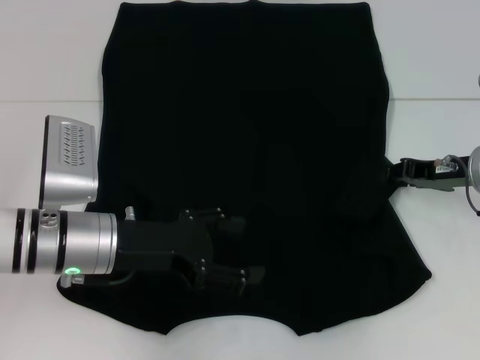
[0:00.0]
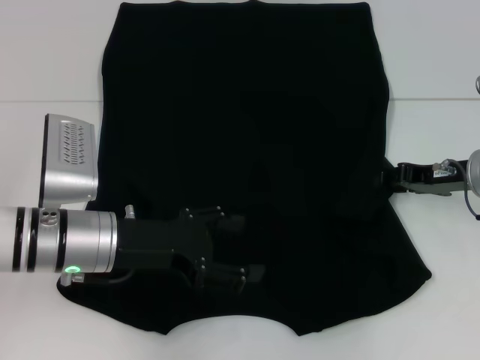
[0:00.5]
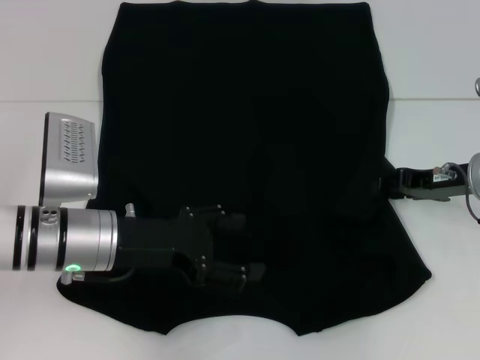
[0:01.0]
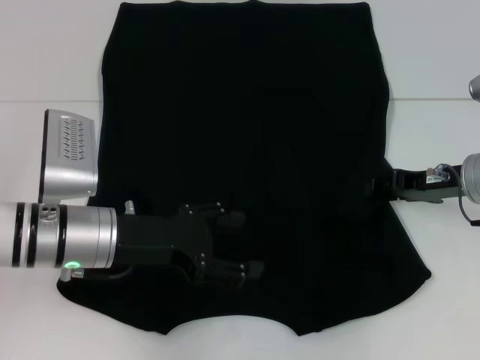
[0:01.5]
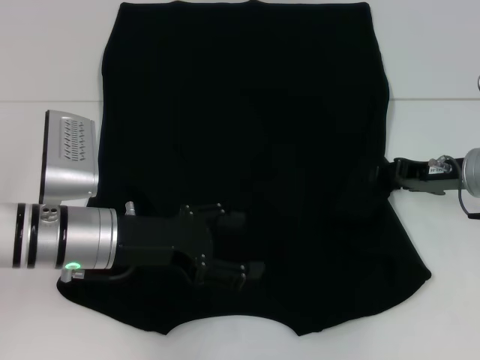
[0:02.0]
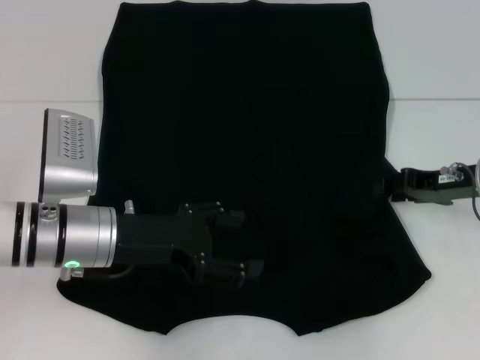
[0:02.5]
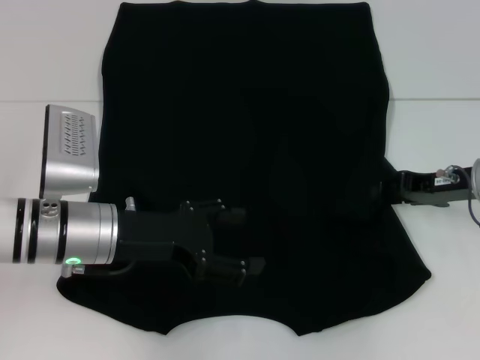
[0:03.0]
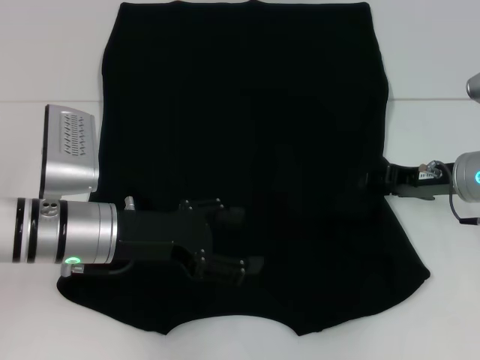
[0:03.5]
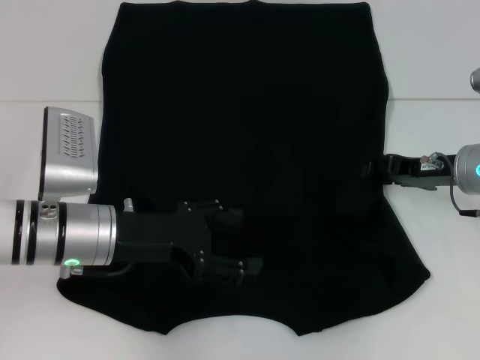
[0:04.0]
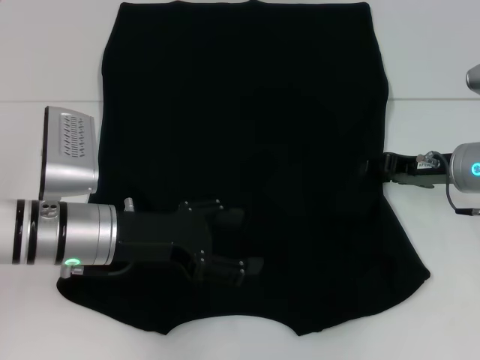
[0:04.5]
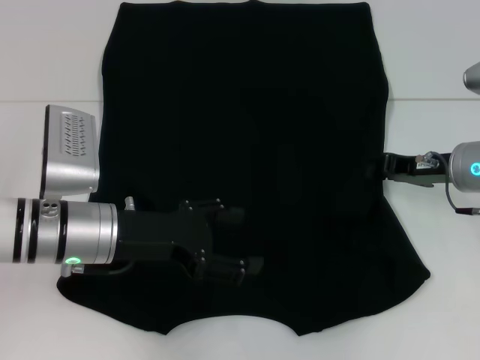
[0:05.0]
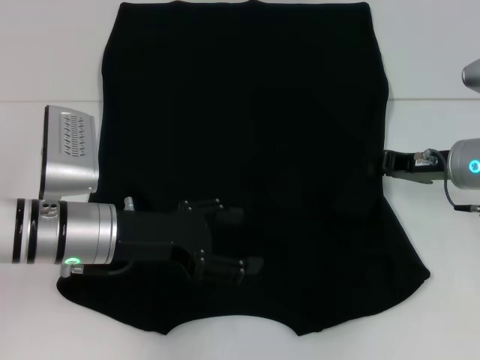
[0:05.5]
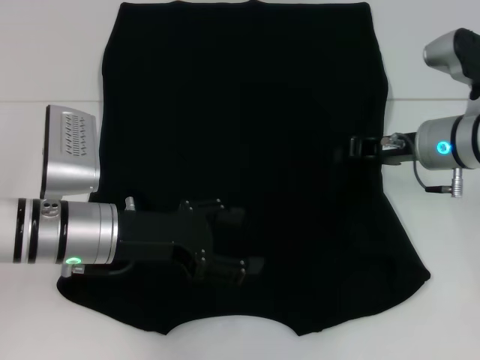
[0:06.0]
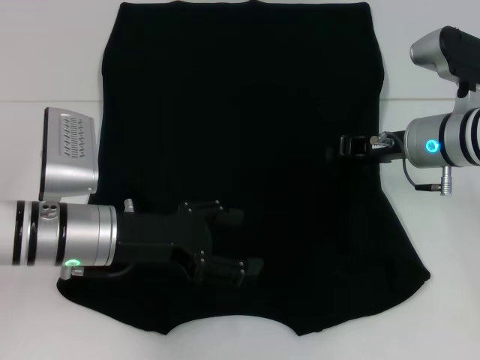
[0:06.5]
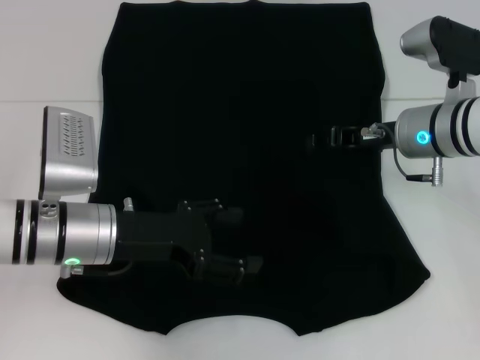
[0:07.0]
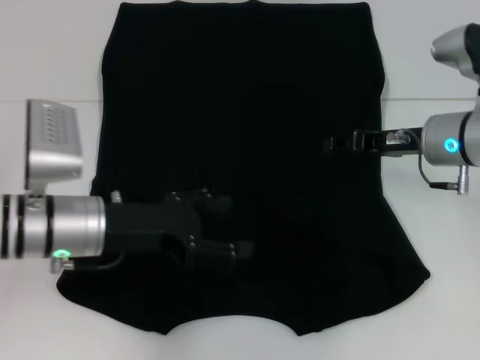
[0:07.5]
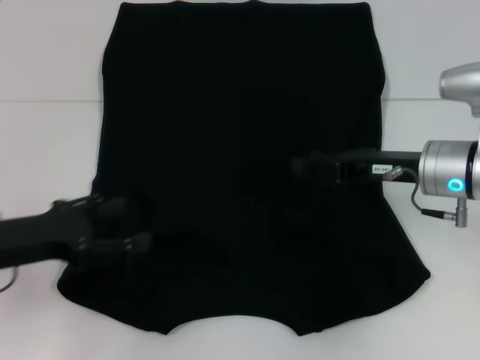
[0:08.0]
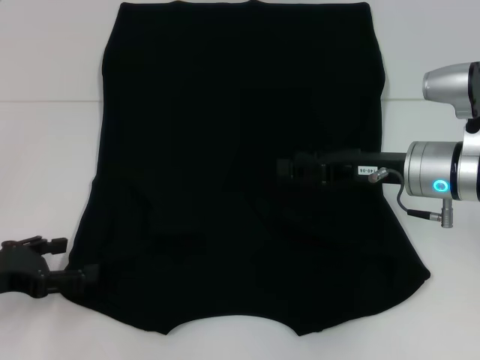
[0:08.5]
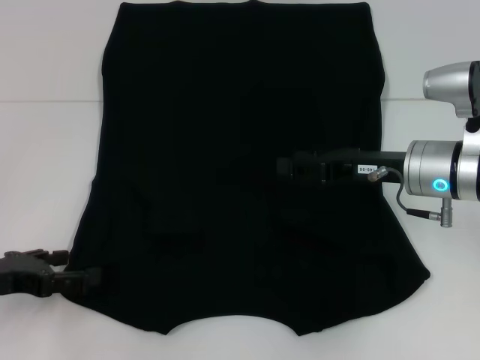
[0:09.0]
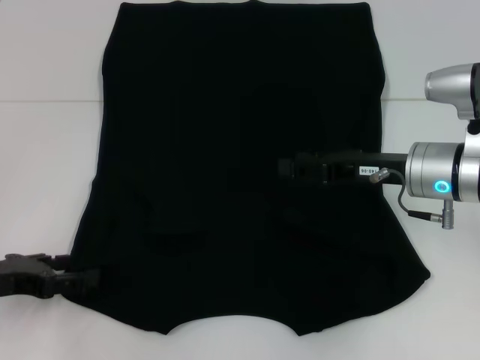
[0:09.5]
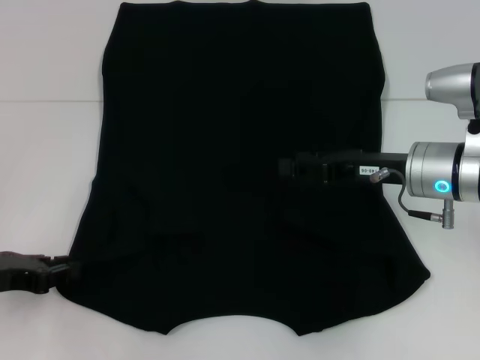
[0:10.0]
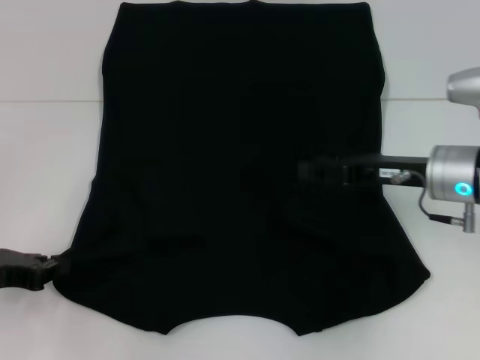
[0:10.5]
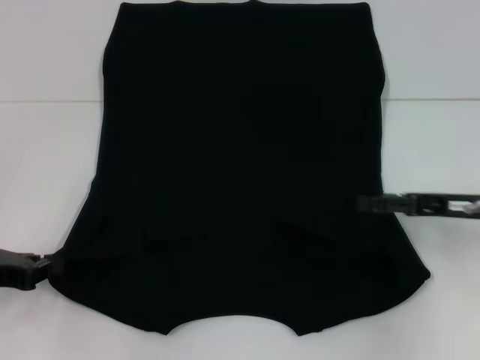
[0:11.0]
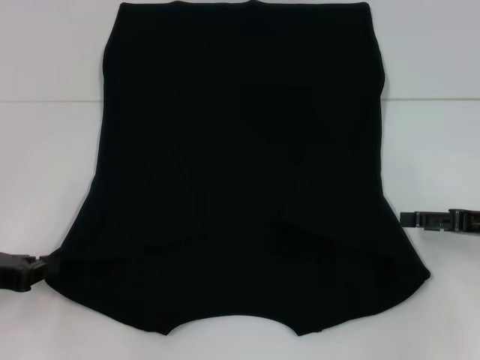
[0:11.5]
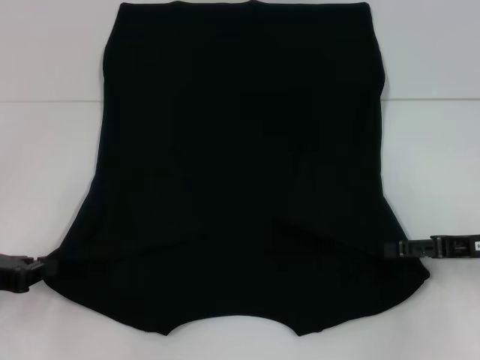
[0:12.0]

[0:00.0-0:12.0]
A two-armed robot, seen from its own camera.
Step, 0:00.0 to 0:07.0: Fold the bottom right sleeve with your right hand.
Step, 0:07.5 to 0:11.0: Grab the bottom left corner with your left hand.
0:00.0 to 0:04.0: The grippers stay close to where they were, moving slightly.
0:04.0 to 0:06.0: The right gripper ends up approximately 5 cm from where it was, and closes its fingers.
0:06.0 to 0:08.0: The right gripper opens its fingers. The left gripper heads to the left, covering approximately 10 cm.
0:08.0 to 0:10.0: The left gripper changes place by some 5 cm, and closes up.
0:10.0 to 0:12.0: The right gripper moves to the right and backward, about 15 cm. The left gripper closes up.

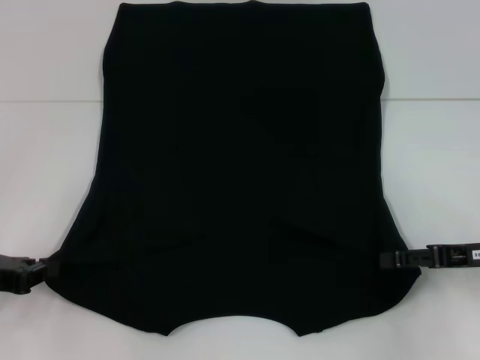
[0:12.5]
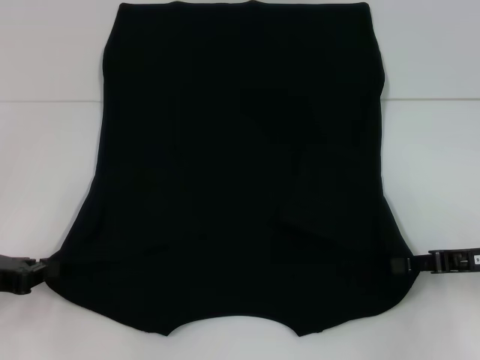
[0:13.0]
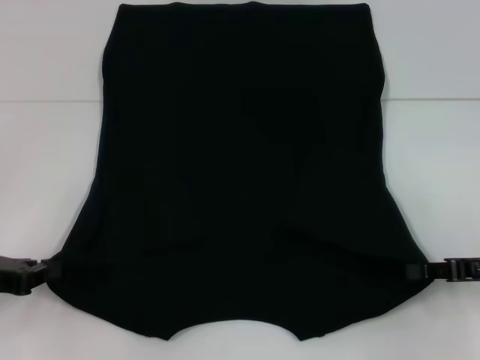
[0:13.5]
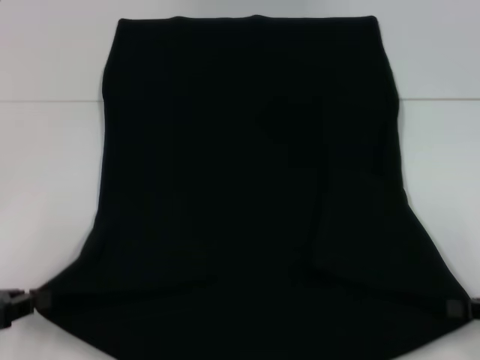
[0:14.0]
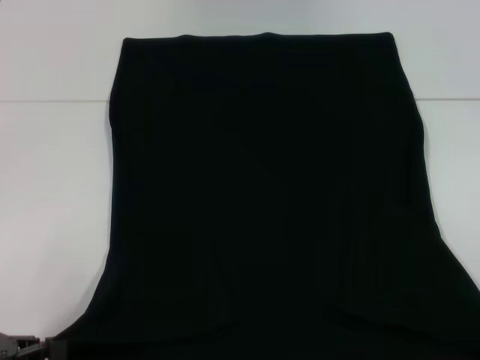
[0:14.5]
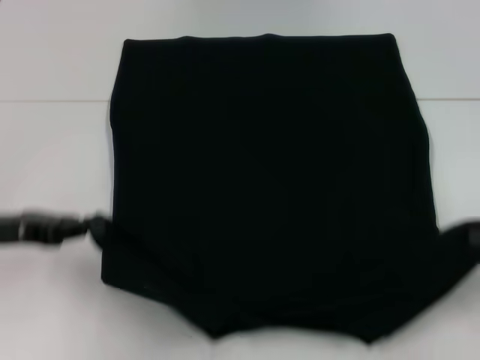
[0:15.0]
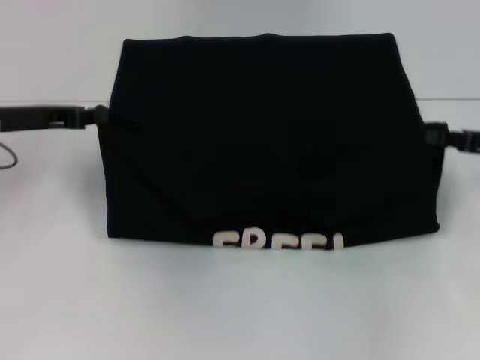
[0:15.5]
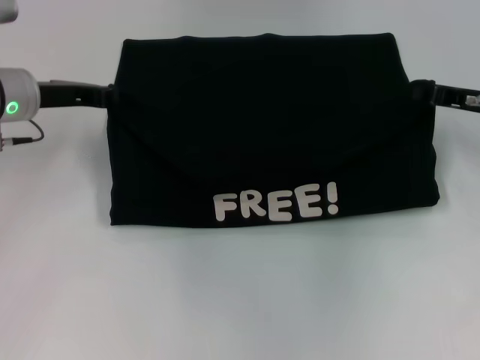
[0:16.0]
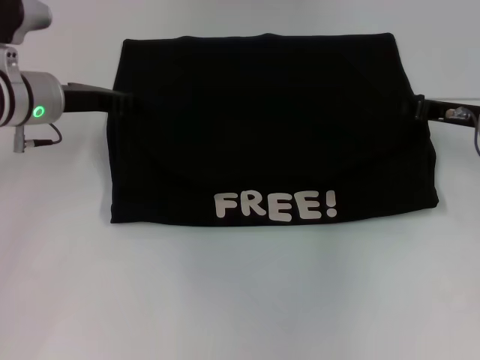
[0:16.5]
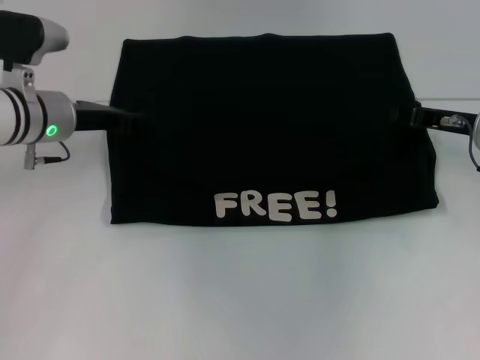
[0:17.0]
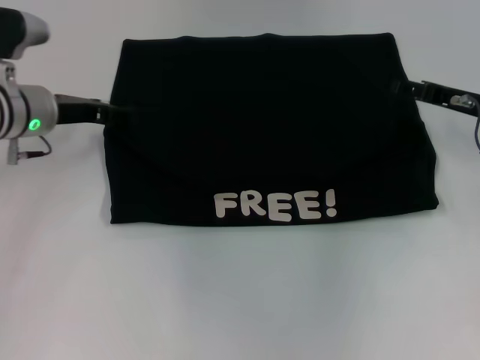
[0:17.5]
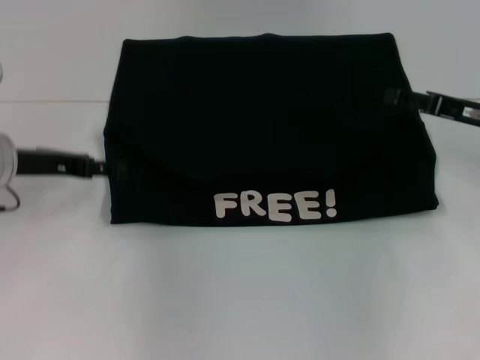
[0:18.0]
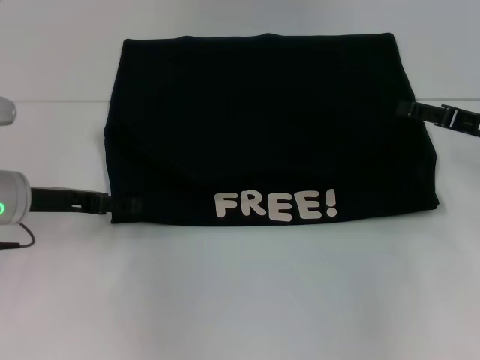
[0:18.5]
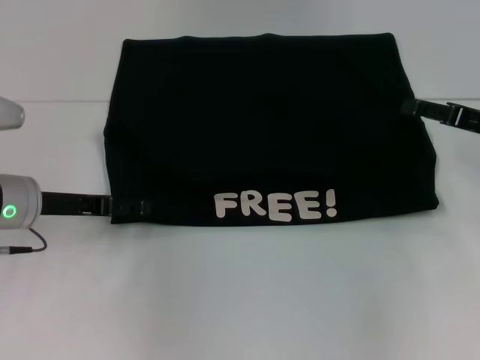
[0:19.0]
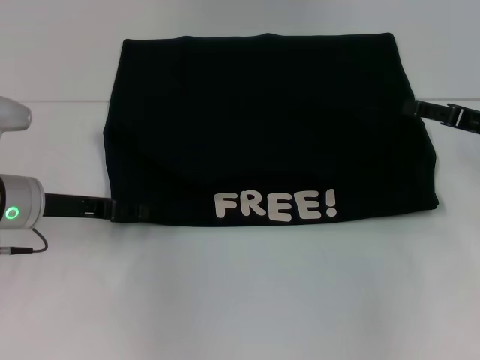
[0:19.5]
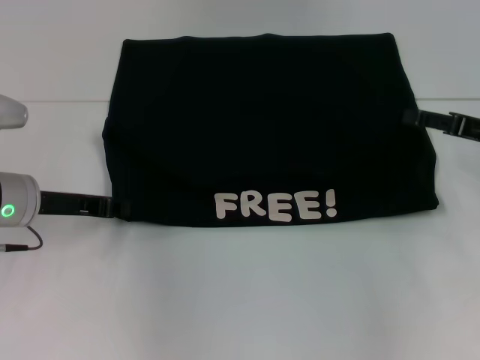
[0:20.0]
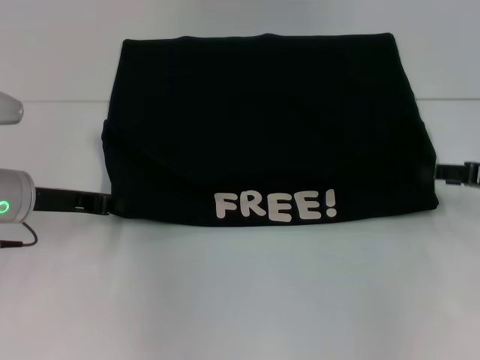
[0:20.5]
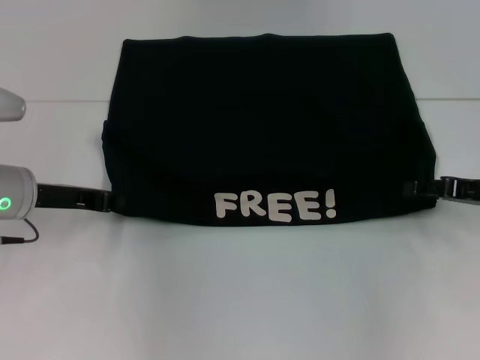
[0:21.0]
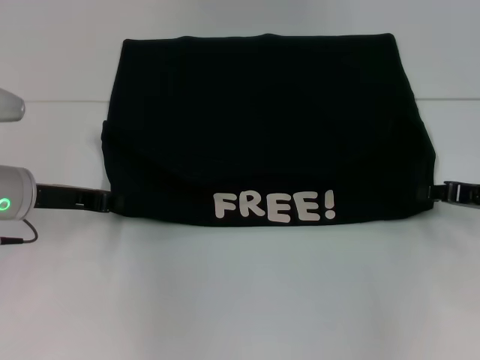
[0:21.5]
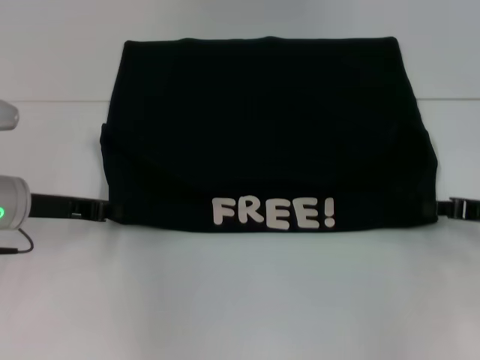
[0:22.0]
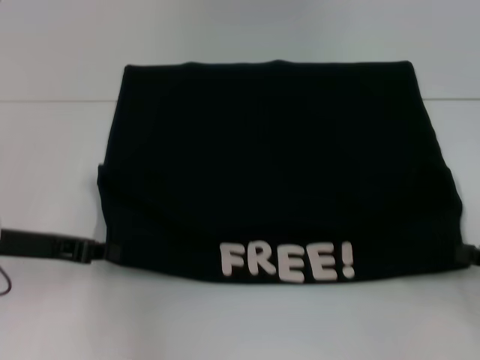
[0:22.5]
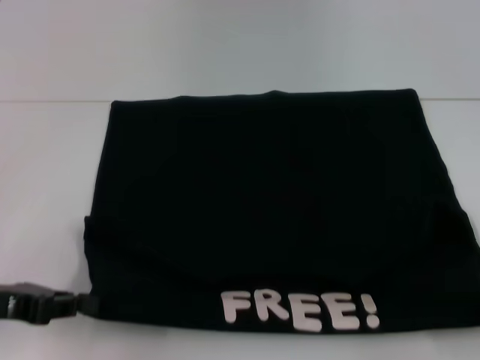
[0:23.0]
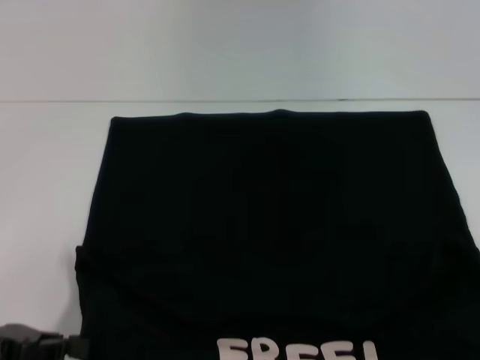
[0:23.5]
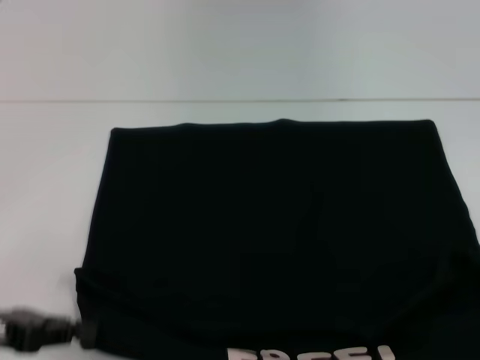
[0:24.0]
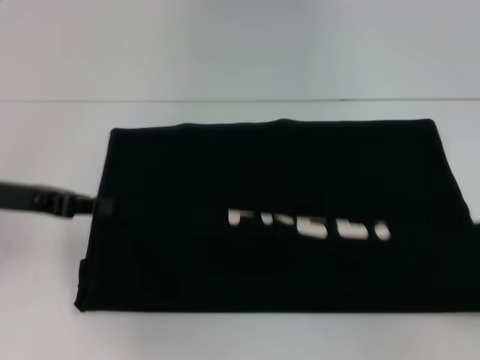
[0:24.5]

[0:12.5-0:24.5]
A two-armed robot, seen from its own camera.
Step, 0:13.5 to 0:17.5: Fold the clothes with your left hand.
Step, 0:13.5 to 0:17.5: Fold the clothes with your right hand.
Step, 0:18.0 to 0:23.5: Pull the clothes with your left hand.
Step, 0:18.0 to 0:23.5: Pull the clothes with your right hand.
0:12.5 to 0:14.5: The right gripper shifts approximately 15 cm backward and to the right, and closes up. The left gripper heads backward, covering some 10 cm.
0:14.5 to 0:16.5: The left gripper shifts approximately 25 cm forward, while the right gripper is displaced forward and to the left by roughly 25 cm.
0:16.5 to 0:18.5: The left gripper heads backward, covering some 10 cm, and opens its fingers, while the right gripper shifts by about 5 cm, and opens.
0:18.5 to 0:20.5: The left gripper closes up.
0:20.5 to 0:22.5: The left gripper changes place by approximately 5 cm, while the right gripper heads backward, covering roughly 10 cm, and closes.
0:22.5 to 0:24.5: The right gripper reaches about 10 cm backward, then returns; the left gripper travels backward and back again, approximately 10 cm each way.

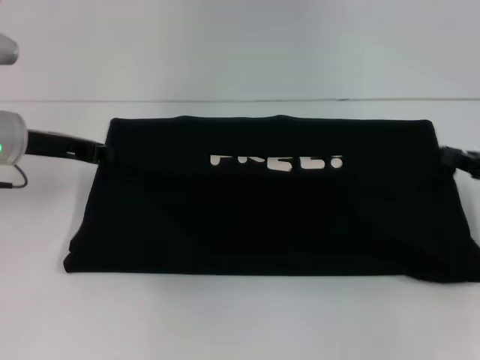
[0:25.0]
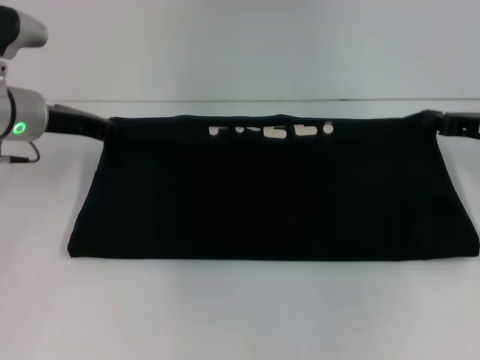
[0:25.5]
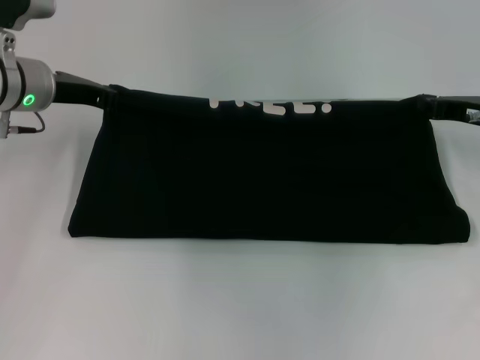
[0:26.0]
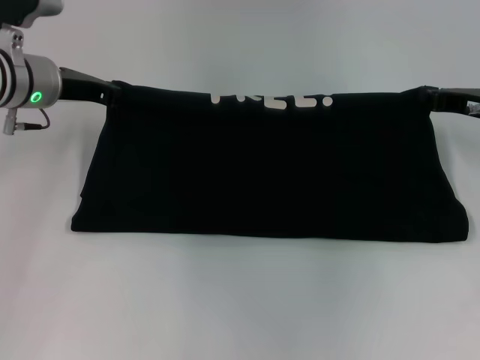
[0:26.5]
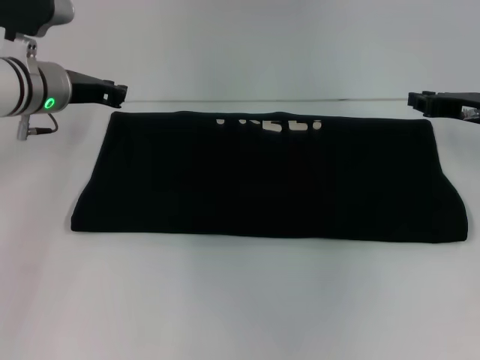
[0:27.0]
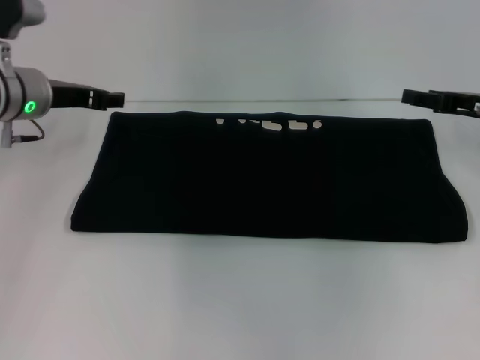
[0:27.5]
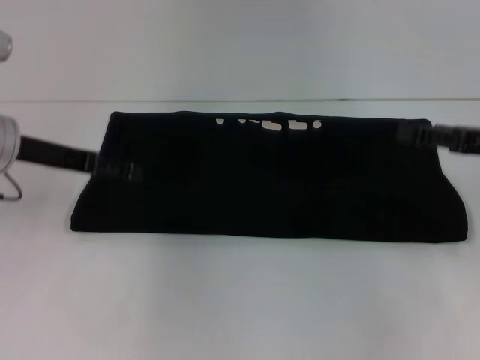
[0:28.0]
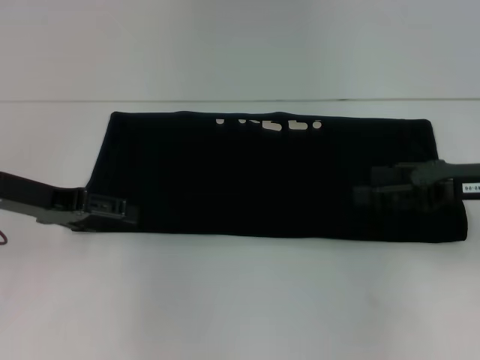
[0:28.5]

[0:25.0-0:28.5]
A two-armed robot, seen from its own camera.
Step, 0:25.0 to 0:27.0: Fold the clothes with your right hand.
0:25.0 to 0:27.0: The right gripper heads forward and to the left, covering about 10 cm; the left gripper goes about 5 cm forward.
0:27.0 to 0:28.5: The left gripper shifts about 10 cm backward and to the left, and opens, while the right gripper goes some 10 cm backward, and opens.
